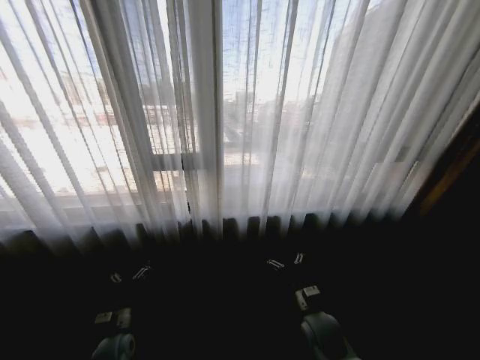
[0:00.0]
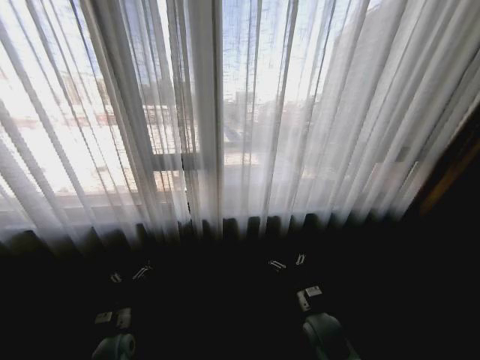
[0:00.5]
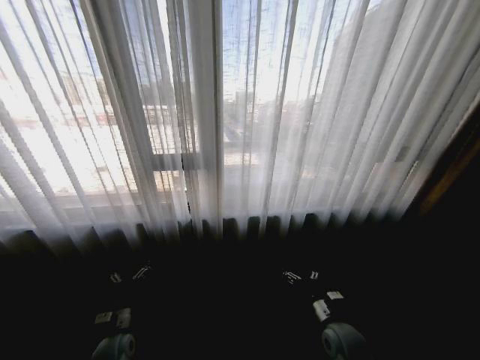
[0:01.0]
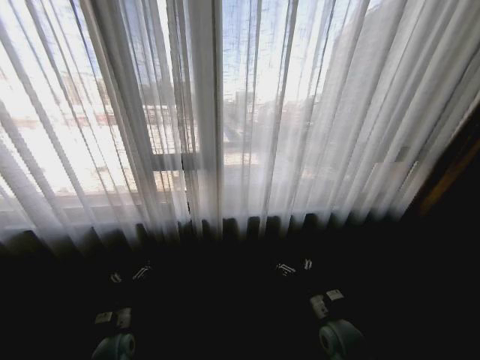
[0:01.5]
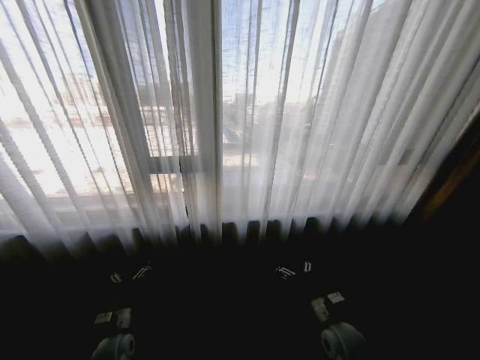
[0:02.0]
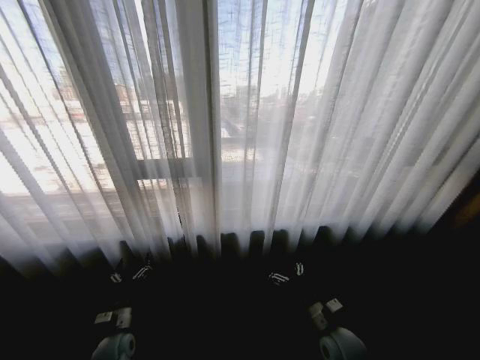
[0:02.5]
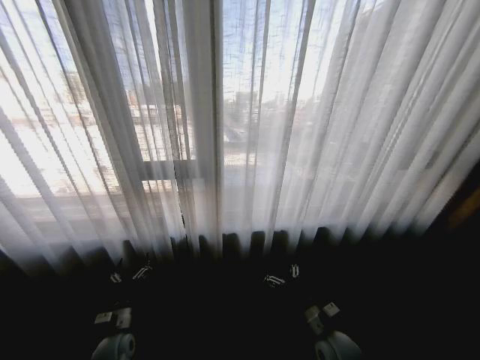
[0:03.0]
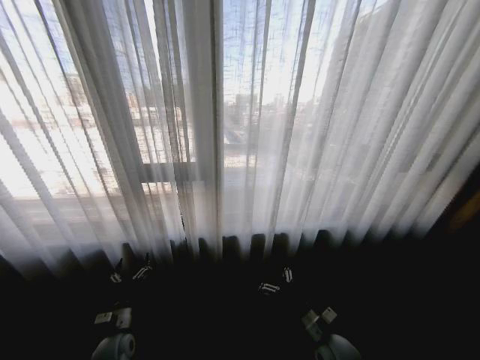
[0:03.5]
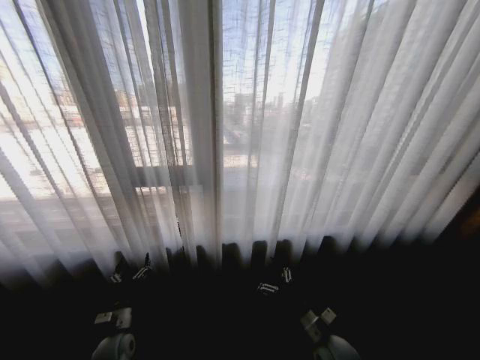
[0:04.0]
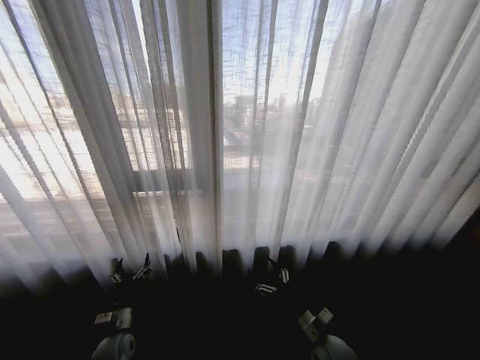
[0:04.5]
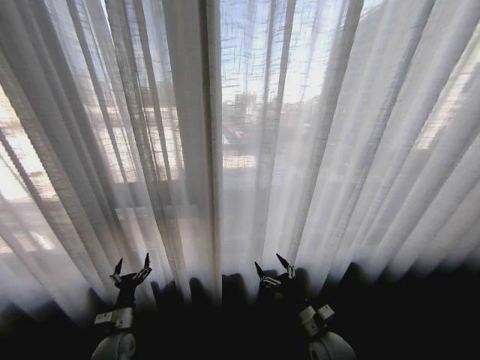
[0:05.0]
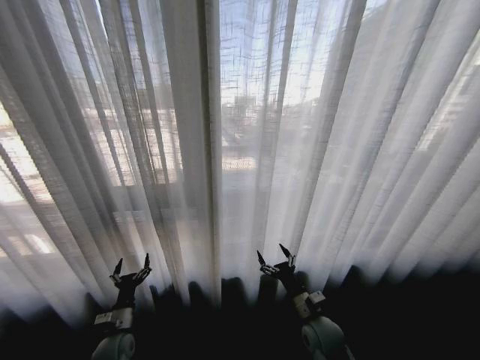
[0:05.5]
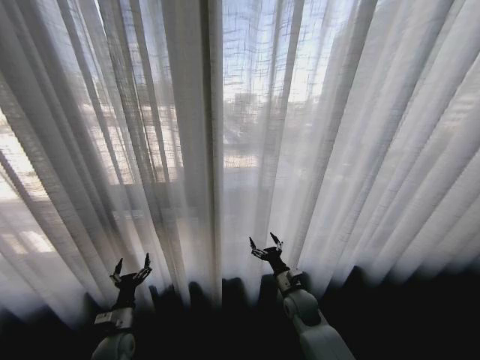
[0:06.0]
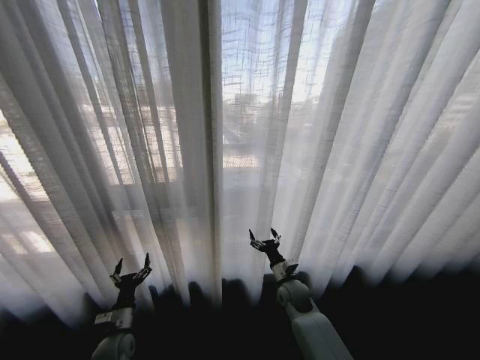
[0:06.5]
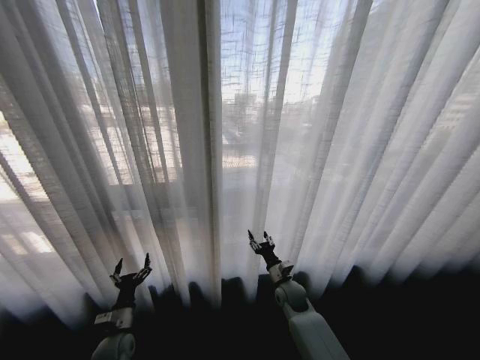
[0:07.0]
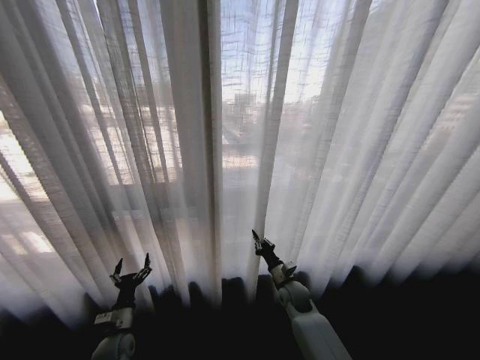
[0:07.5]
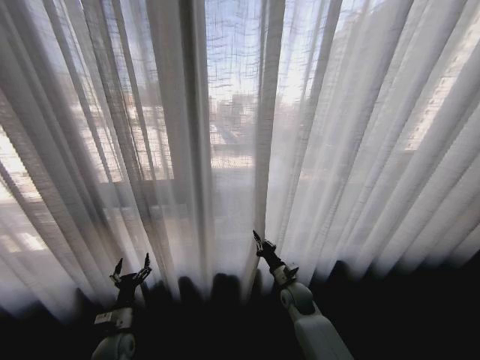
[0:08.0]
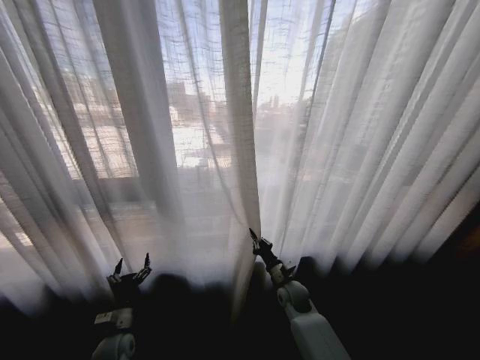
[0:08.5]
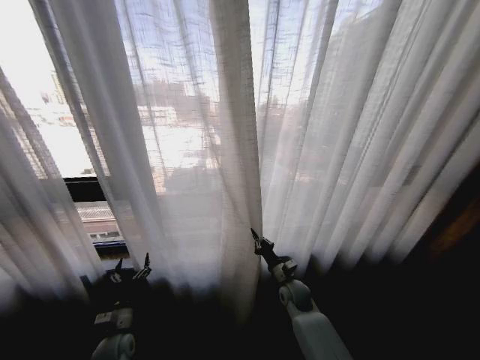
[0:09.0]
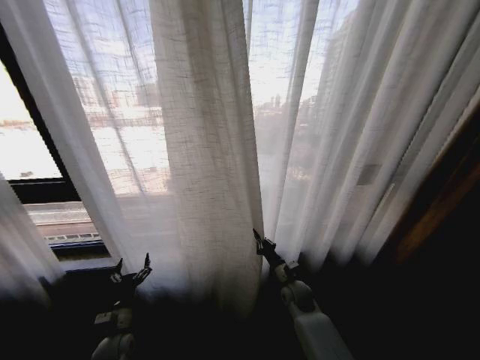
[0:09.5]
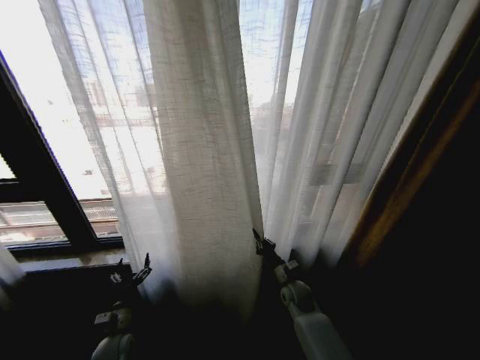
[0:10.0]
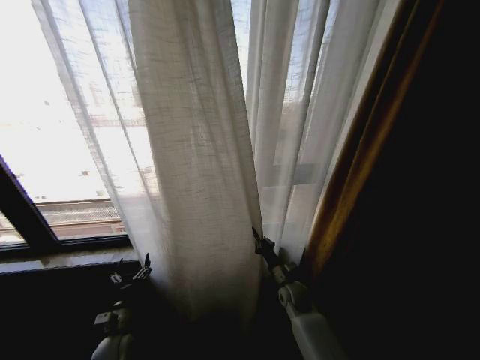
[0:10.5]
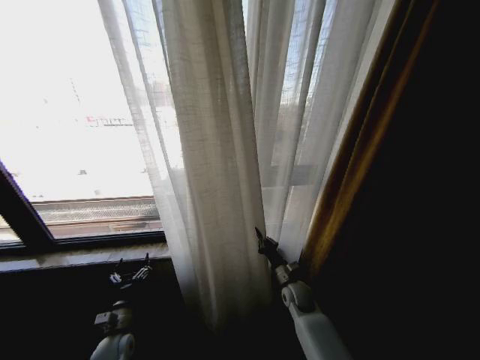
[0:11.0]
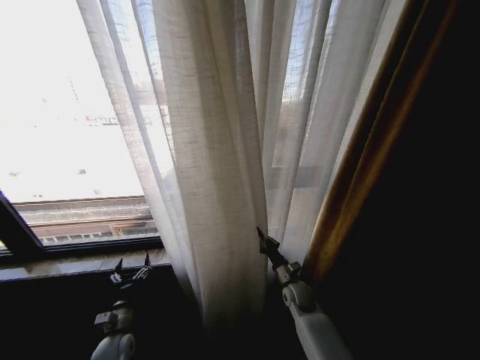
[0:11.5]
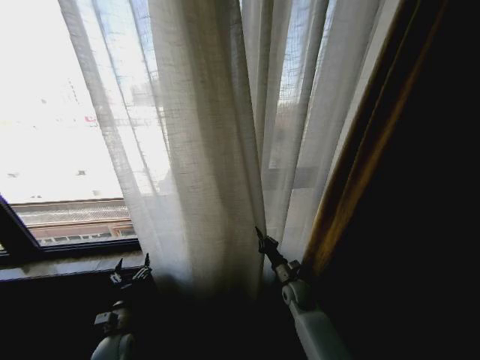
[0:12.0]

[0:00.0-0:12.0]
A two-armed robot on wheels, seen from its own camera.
Task of the whole recording: Open the curtains by pulling them apart, changing their state from closed to fully open.
0:04.0 to 0:06.0: The right gripper goes roughly 15 cm forward.
0:06.0 to 0:08.0: The right gripper closes its fingers.

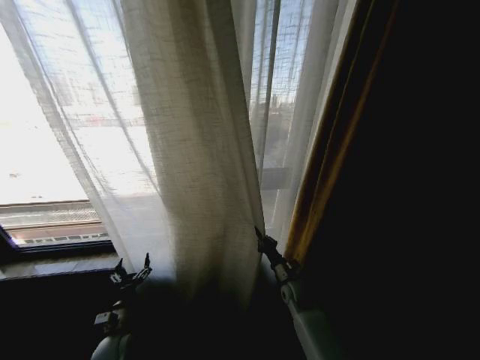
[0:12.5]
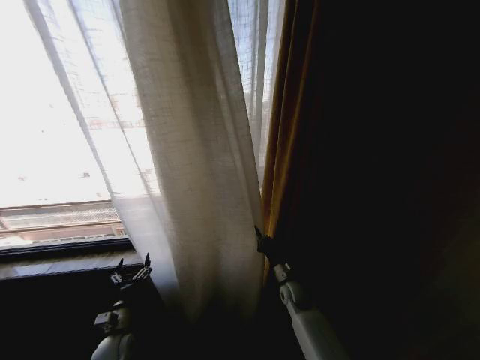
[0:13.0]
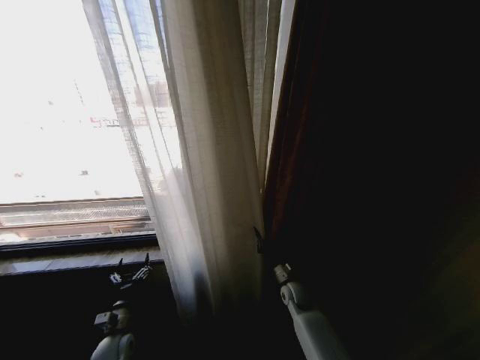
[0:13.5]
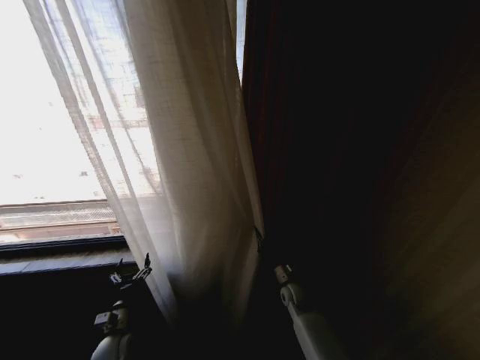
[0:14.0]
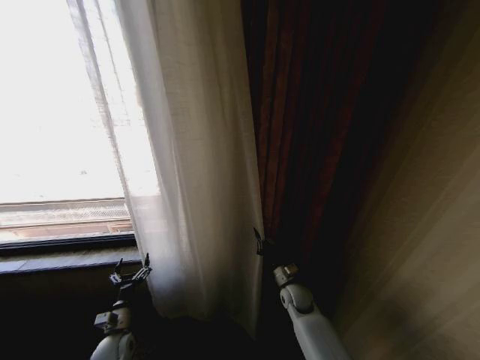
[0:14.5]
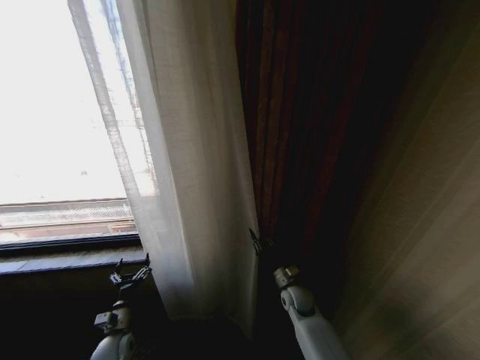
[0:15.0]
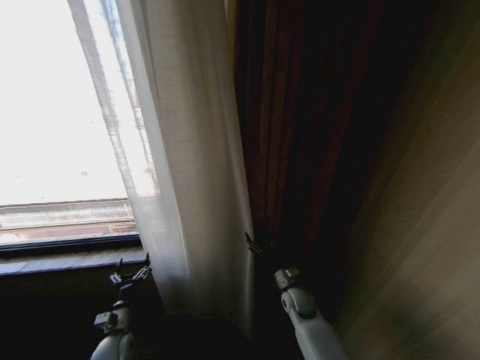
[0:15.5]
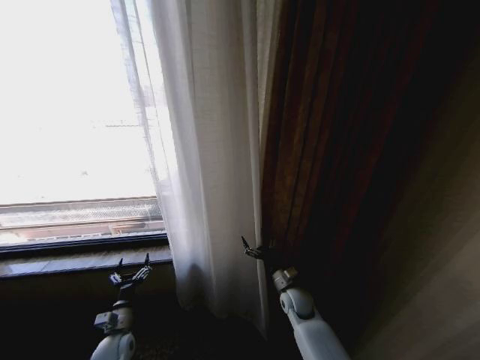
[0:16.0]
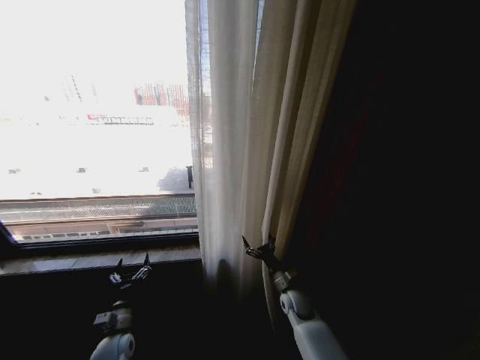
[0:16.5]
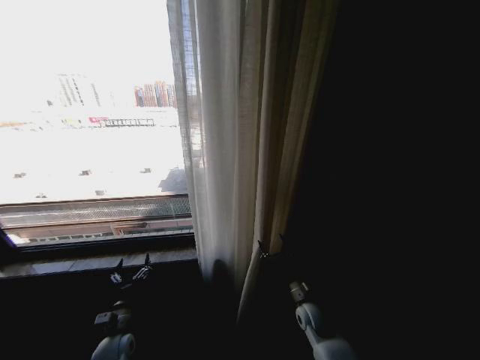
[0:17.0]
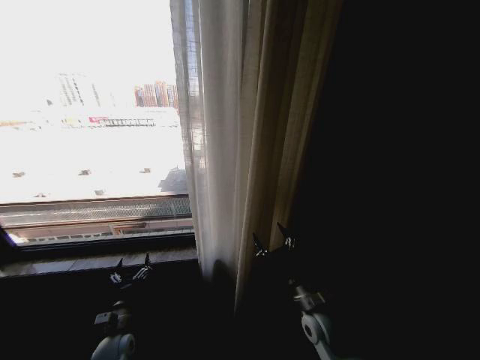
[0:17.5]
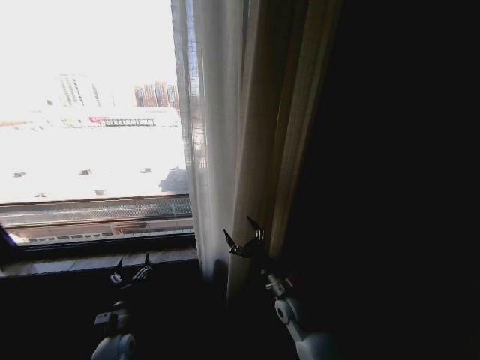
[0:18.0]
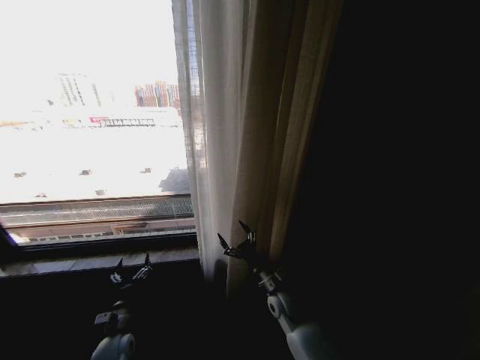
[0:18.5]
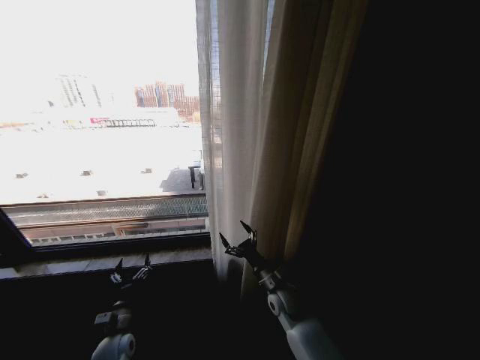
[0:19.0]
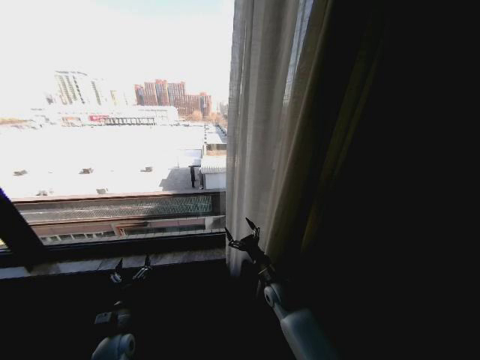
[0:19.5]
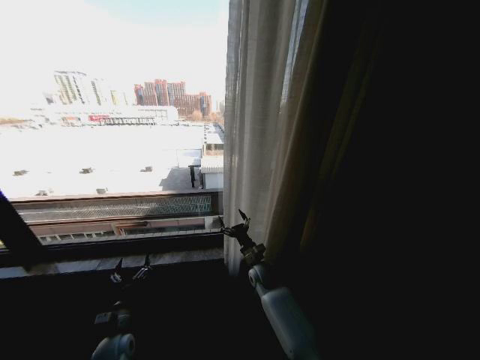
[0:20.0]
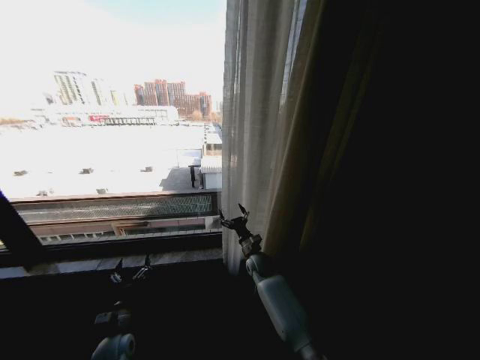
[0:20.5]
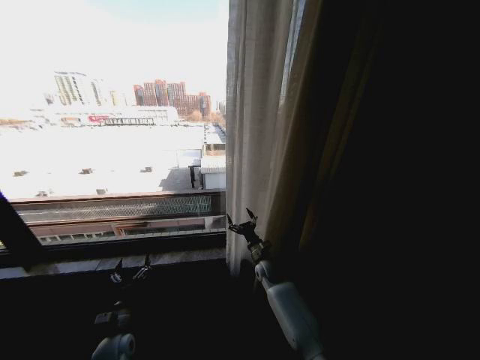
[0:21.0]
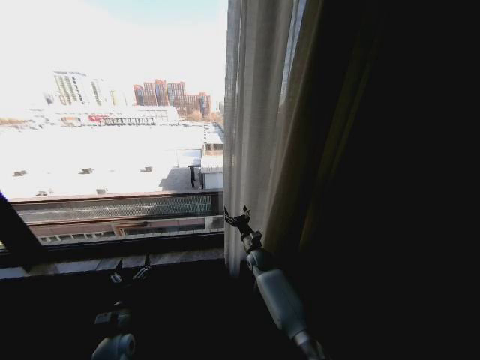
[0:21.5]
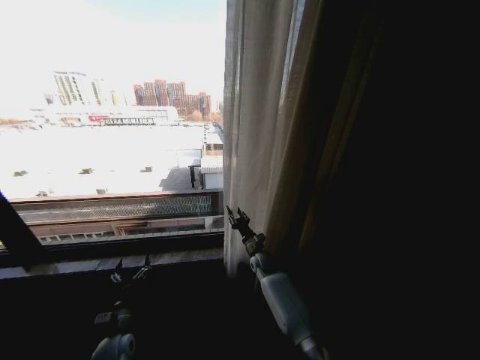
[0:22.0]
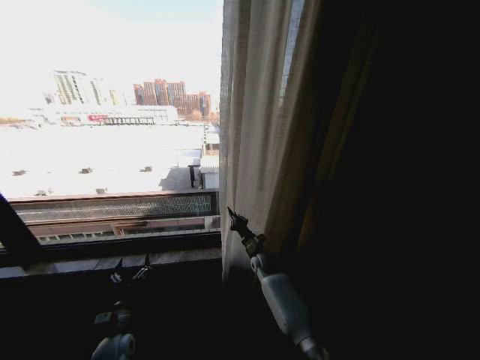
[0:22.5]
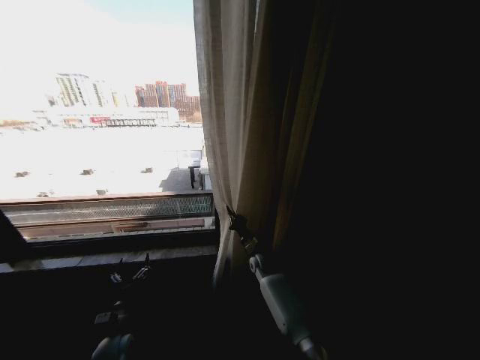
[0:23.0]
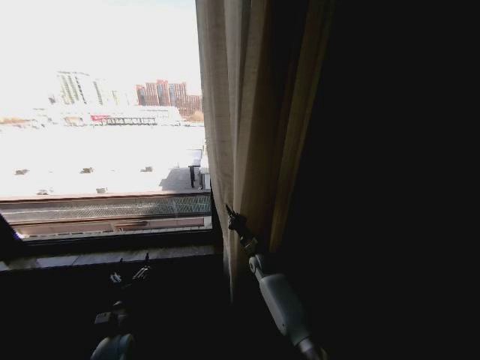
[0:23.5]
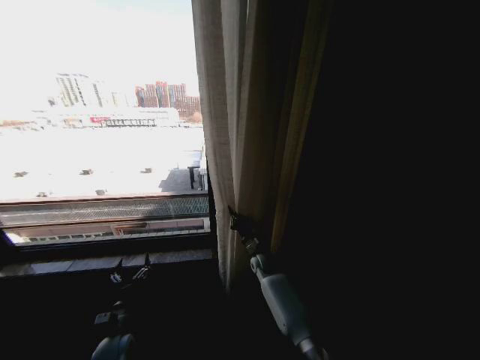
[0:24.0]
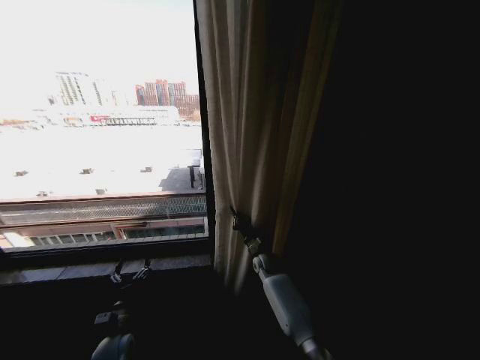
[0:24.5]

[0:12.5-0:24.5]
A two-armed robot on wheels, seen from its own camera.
Task of the whole recording: Open the curtains by pulling them apart, changing their state from closed to fully open.
0:14.5 to 0:16.5: The right gripper opens its fingers.
0:16.5 to 0:18.5: The right gripper goes about 10 cm upward and to the left.
0:18.5 to 0:20.5: The right gripper is displaced forward by some 15 cm.
0:20.5 to 0:22.5: The right gripper closes.
0:22.5 to 0:24.5: There are only small adjustments of the grippers.

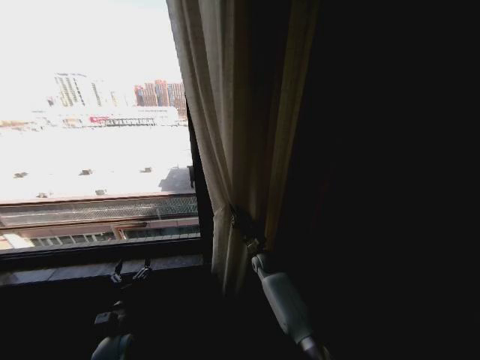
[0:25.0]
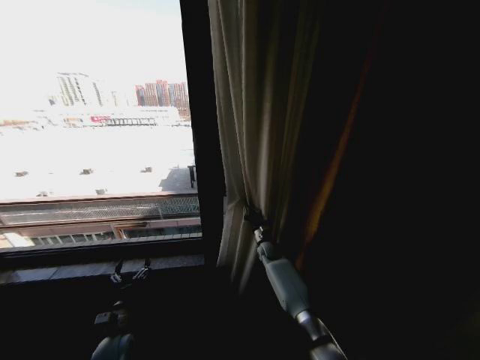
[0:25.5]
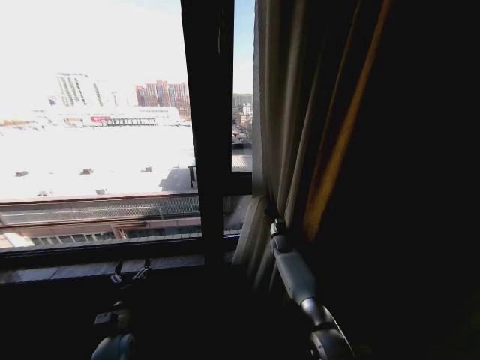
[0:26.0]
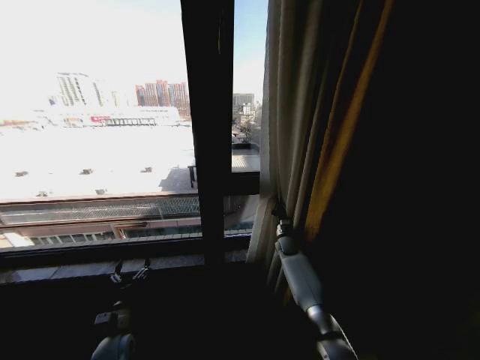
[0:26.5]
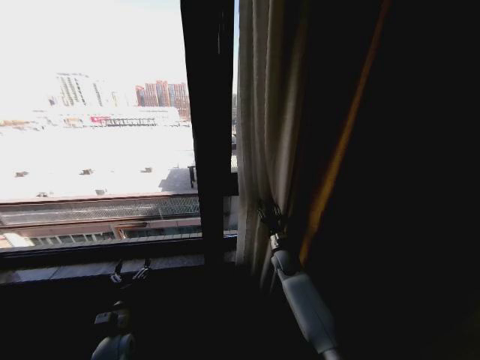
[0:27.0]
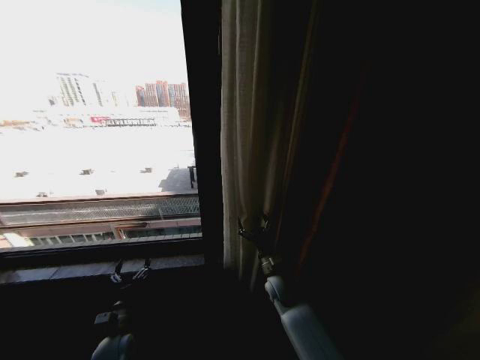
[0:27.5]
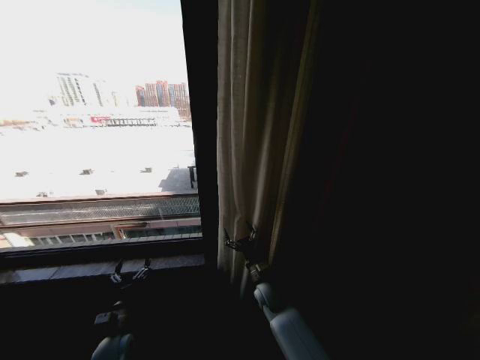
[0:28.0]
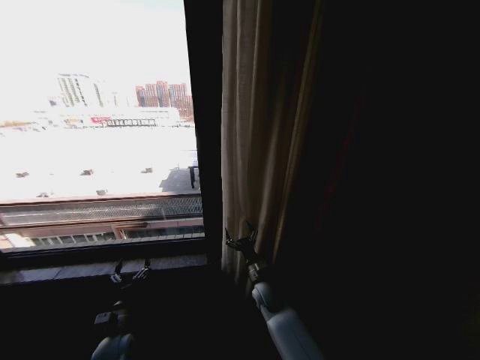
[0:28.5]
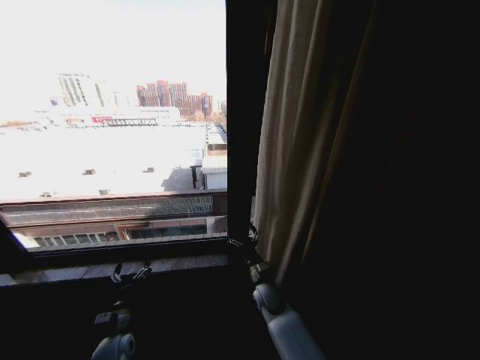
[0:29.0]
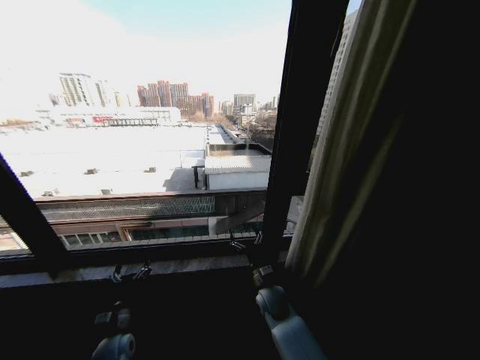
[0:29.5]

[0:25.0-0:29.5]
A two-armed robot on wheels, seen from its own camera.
Task of the whole recording: Open the curtains by pulling them apart, changing their state from closed to fully open.
0:25.0 to 0:27.0: The right gripper goes some 5 cm to the right, and opens.
0:27.0 to 0:29.5: The right gripper travels backward and to the left by about 15 cm, and opens.
